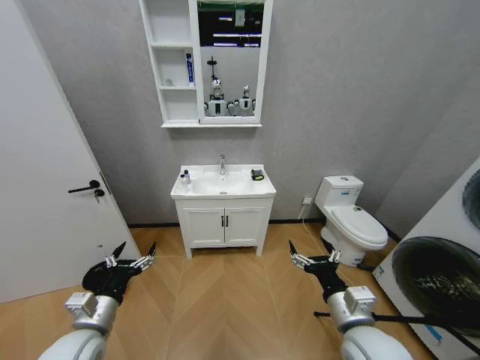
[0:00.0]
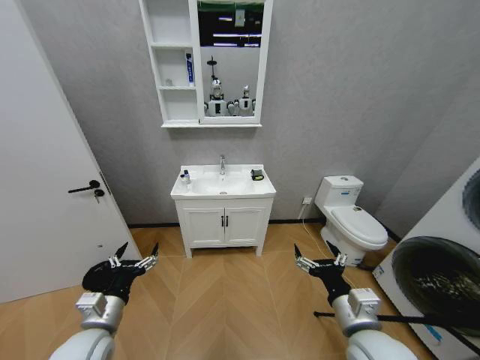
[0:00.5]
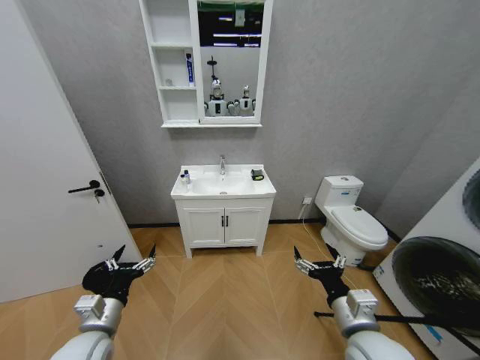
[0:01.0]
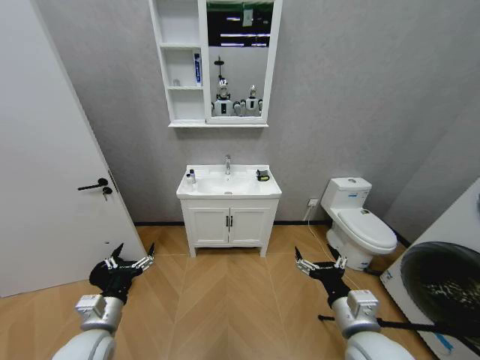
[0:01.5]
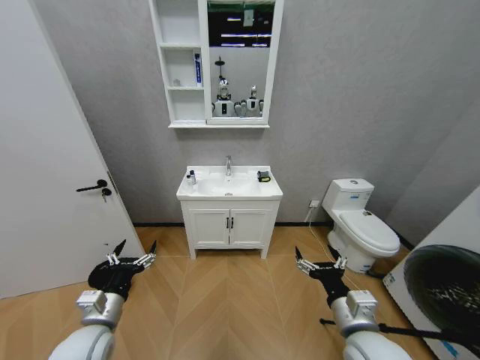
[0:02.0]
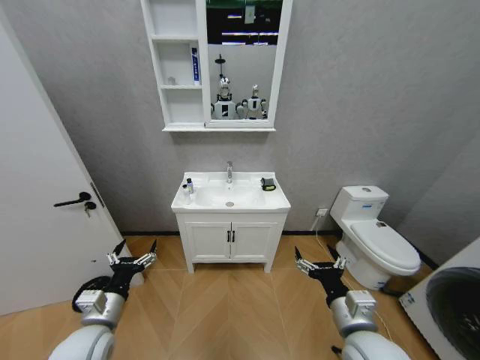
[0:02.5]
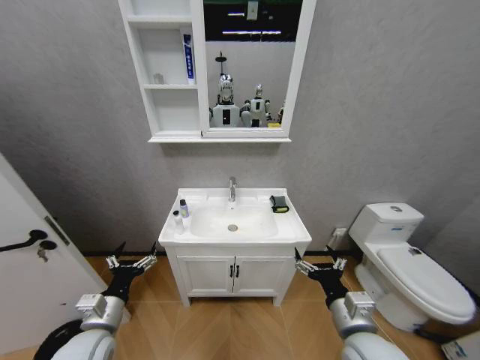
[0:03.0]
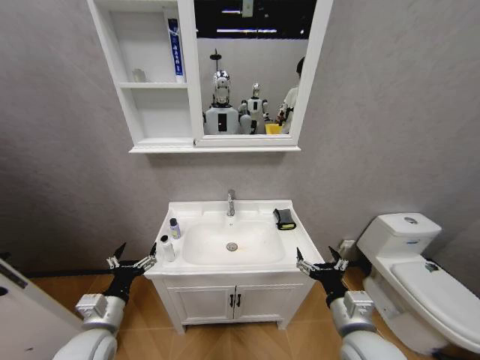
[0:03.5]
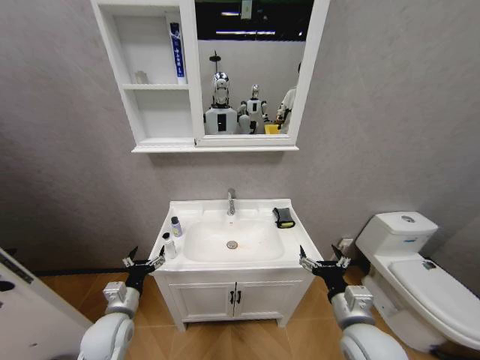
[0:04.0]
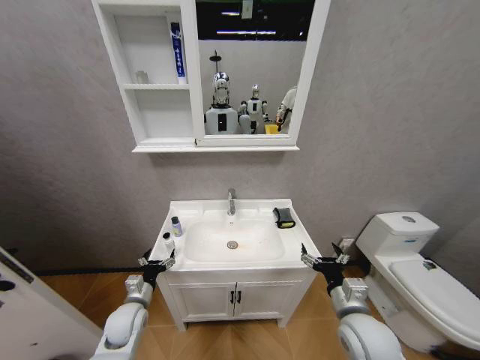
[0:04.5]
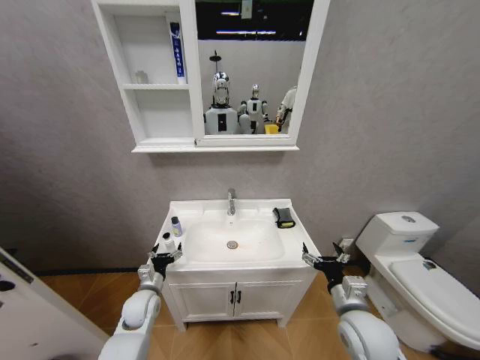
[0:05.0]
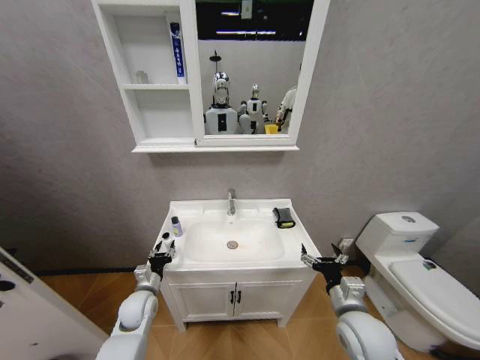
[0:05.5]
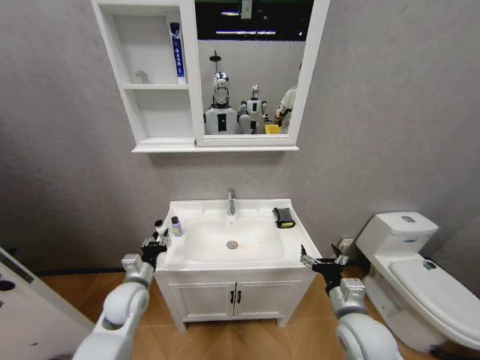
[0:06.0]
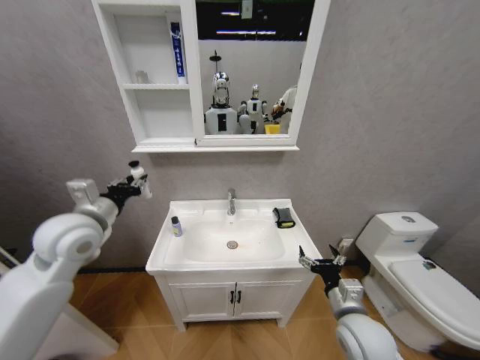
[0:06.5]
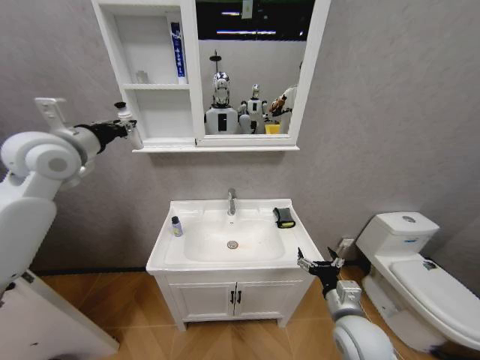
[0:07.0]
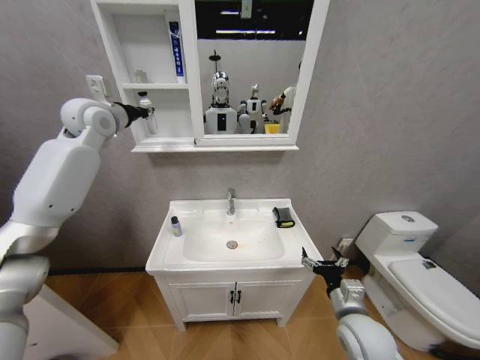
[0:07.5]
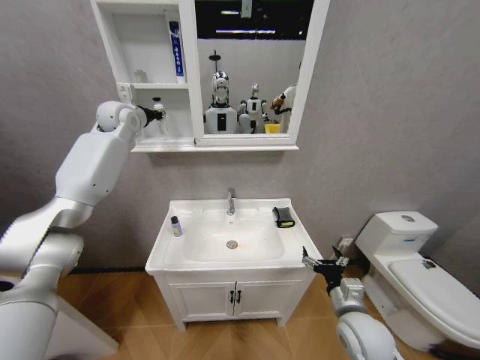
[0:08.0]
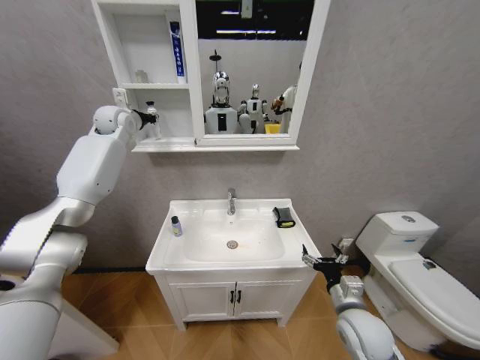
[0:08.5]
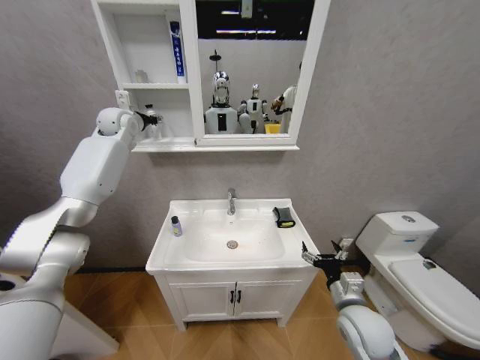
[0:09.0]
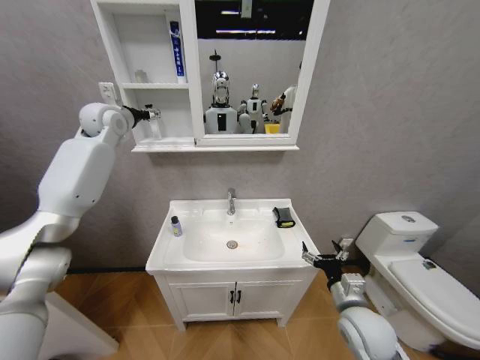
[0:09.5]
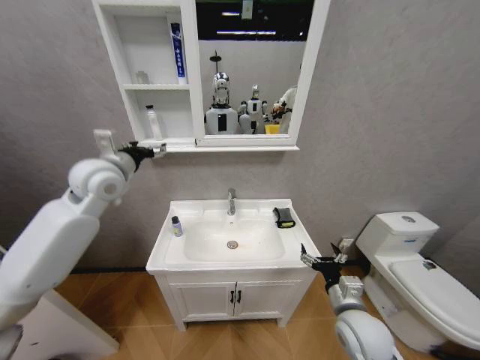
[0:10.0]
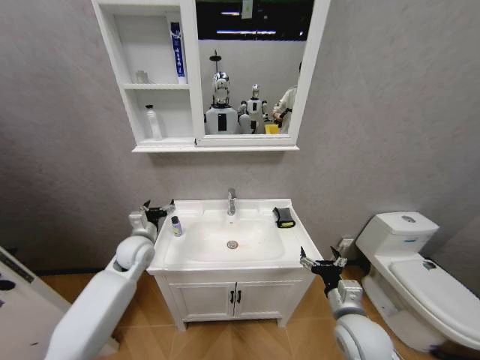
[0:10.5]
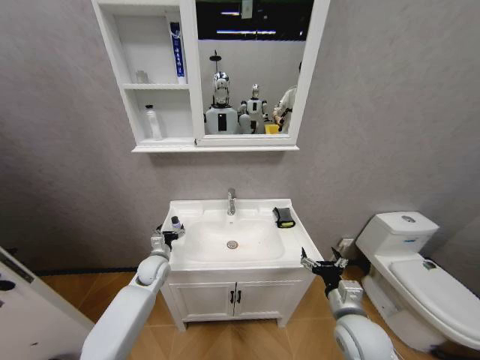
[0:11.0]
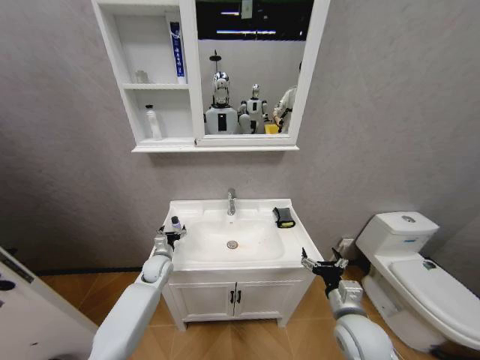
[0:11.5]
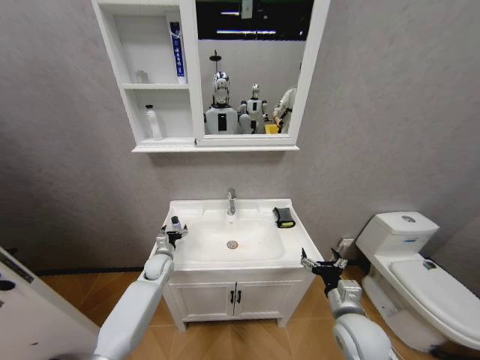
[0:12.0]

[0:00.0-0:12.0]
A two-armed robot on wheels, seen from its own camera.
Task of the whole recording: Move facial cleanser and shampoo from washbasin to cabinet, then wipe washbasin with towel.
0:02.0 to 0:04.0: The left gripper heads downward, covering some 5 cm.
0:04.0 to 0:06.0: The left gripper heads forward, covering approximately 5 cm, reaches roughly 5 cm downward, then returns, and closes its fingers.
0:06.0 to 0:08.0: The left gripper moves upward and forward, roughly 50 cm.
0:08.0 to 0:10.0: The left gripper heads backward and downward, covering roughly 20 cm, and opens its fingers.
0:10.0 to 0:12.0: The left gripper heads downward, covering approximately 35 cm.

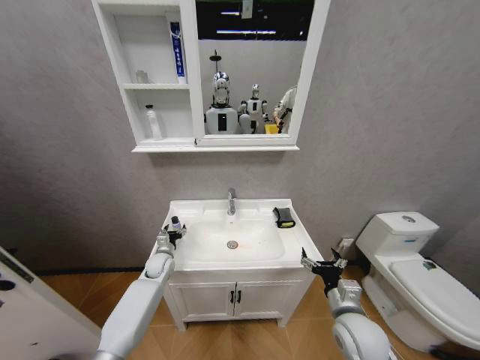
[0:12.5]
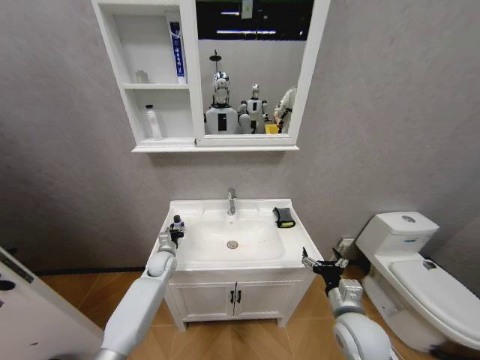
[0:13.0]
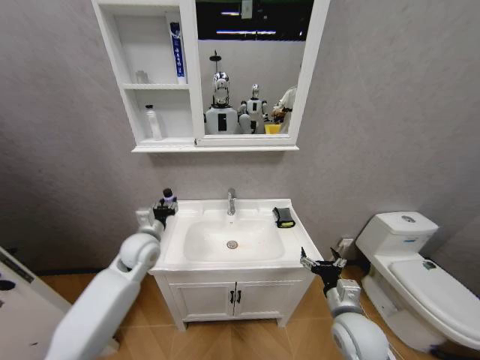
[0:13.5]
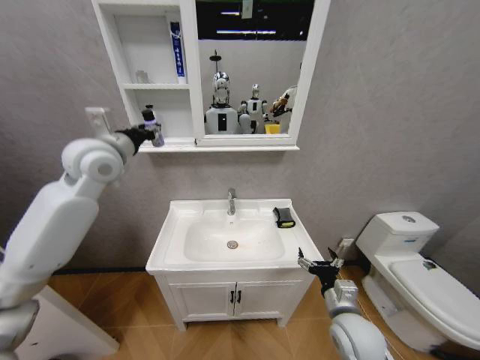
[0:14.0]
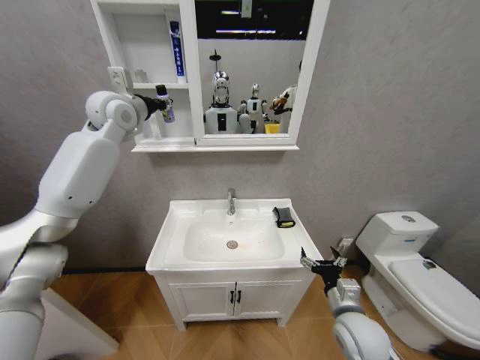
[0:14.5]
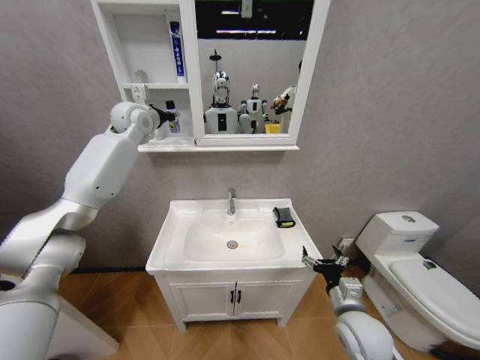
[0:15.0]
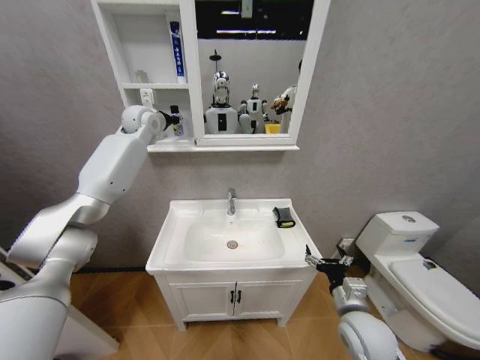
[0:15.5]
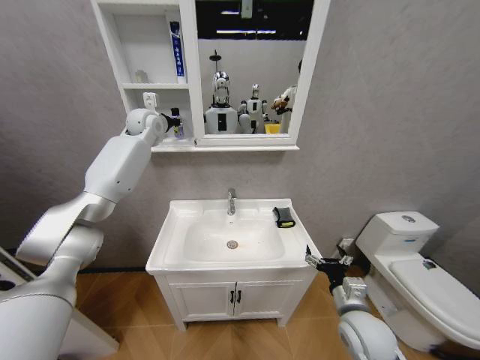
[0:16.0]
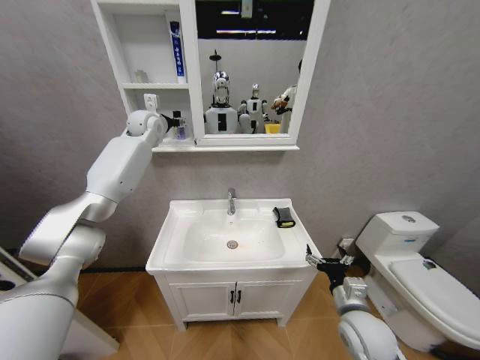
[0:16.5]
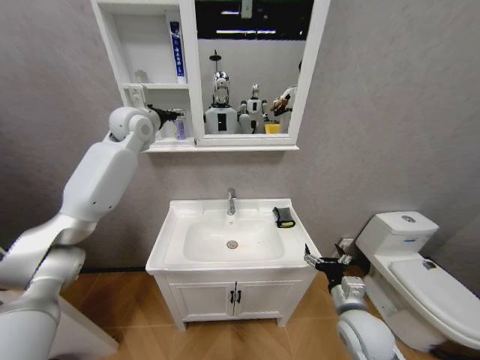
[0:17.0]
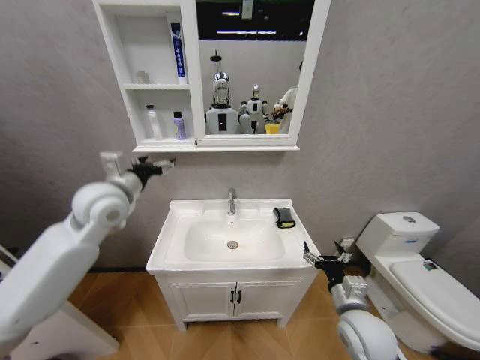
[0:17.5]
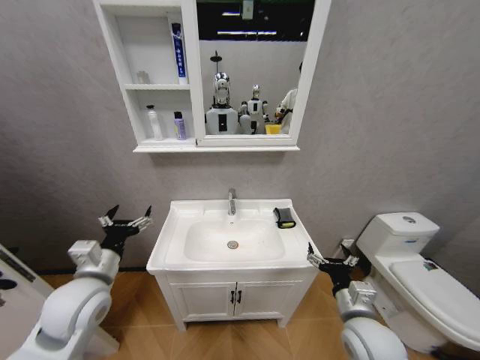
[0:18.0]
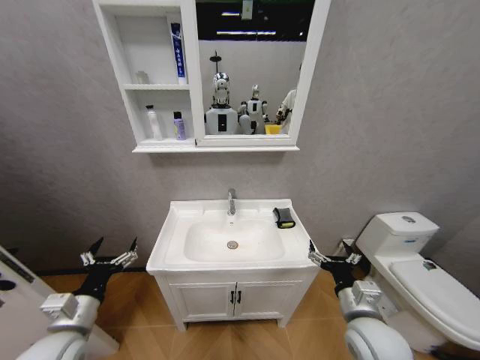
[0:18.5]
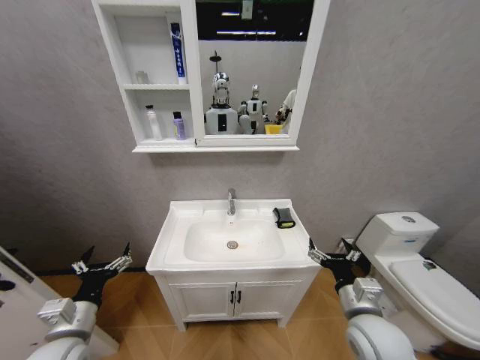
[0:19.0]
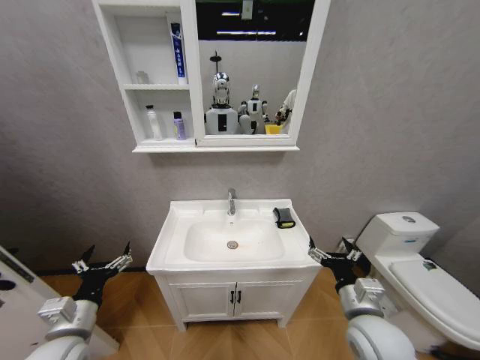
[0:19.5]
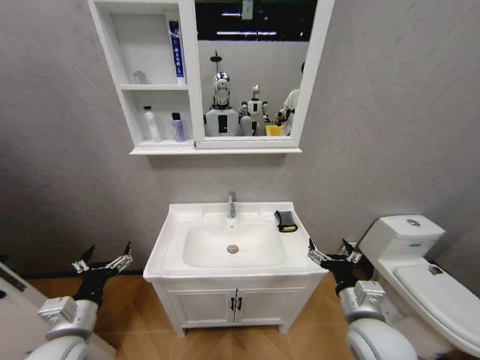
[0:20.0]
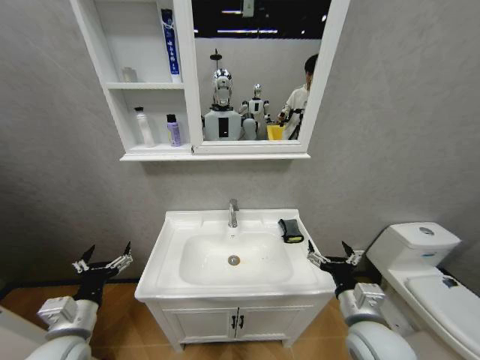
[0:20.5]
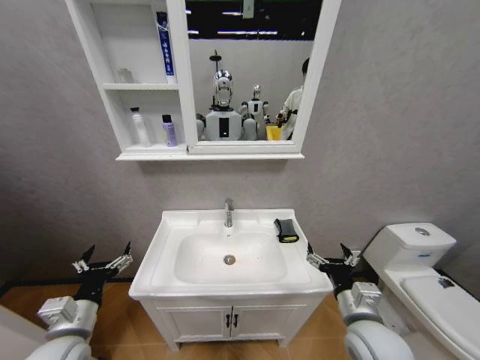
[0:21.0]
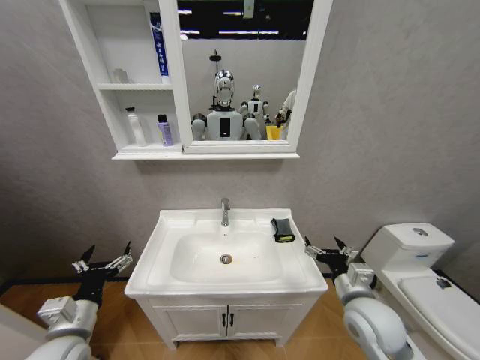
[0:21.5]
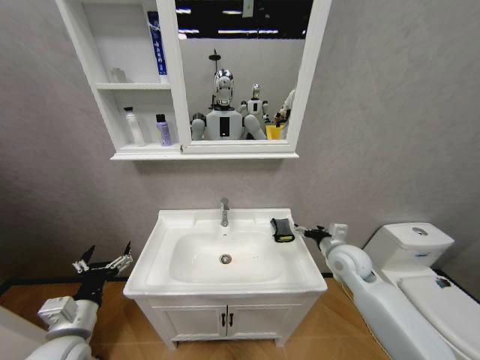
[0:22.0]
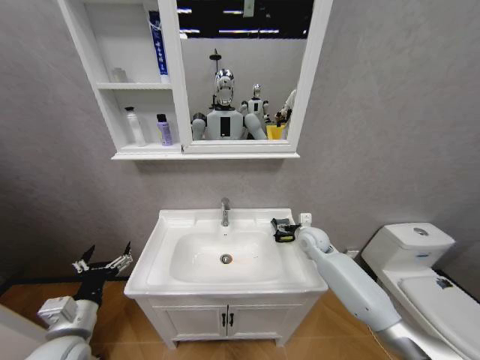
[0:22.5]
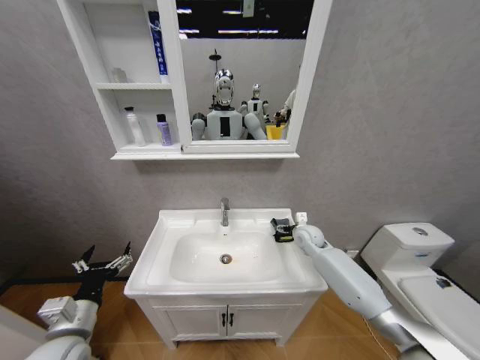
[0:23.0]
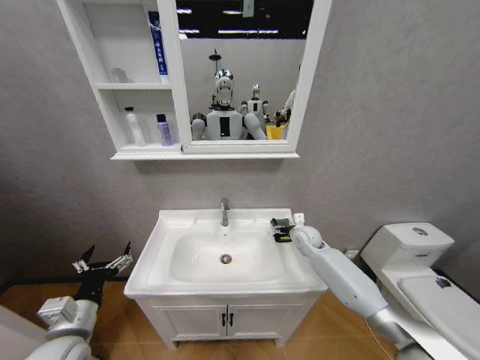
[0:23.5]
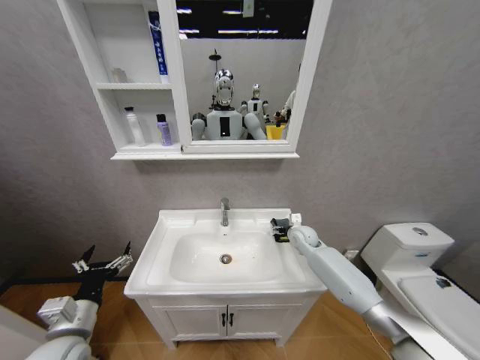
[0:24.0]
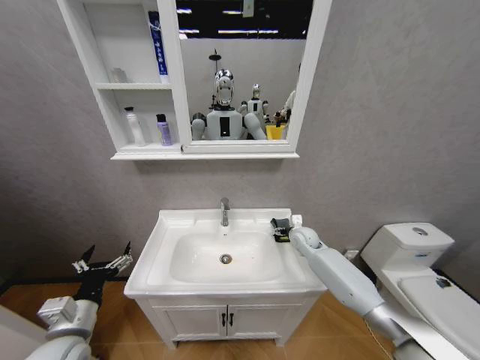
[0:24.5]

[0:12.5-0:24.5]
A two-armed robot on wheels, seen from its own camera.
Task of the whole recording: Move facial cleanser and shampoo from washbasin to cabinet, then wipe washbasin with towel.
0:12.5 to 0:14.5: The left gripper goes roughly 50 cm upward, and closes.
0:14.5 to 0:16.5: The left gripper moves forward and downward, approximately 10 cm, and opens.
0:16.5 to 0:18.5: The left gripper travels backward and downward by some 60 cm.
0:20.5 to 0:22.5: The right gripper shifts roughly 30 cm forward.
0:22.5 to 0:24.5: The right gripper shifts by approximately 5 cm.

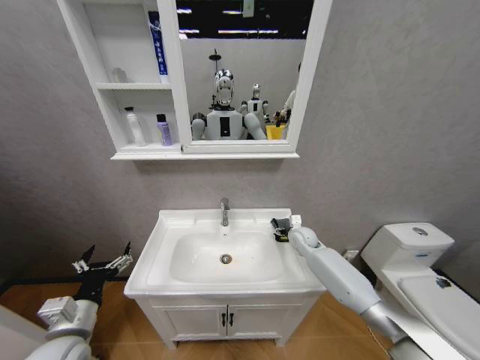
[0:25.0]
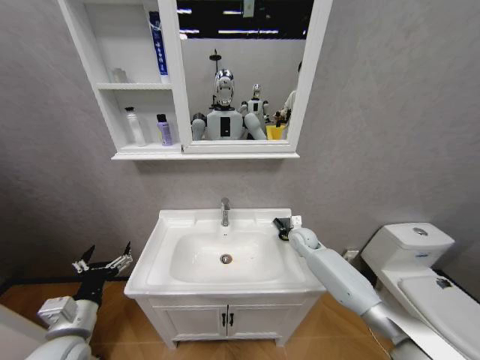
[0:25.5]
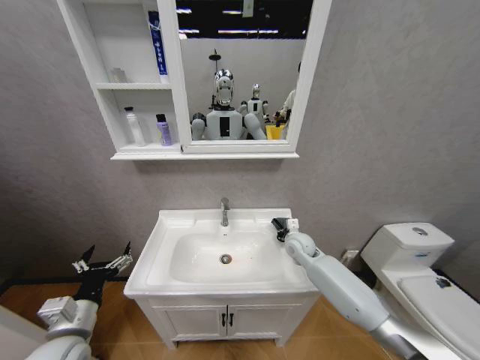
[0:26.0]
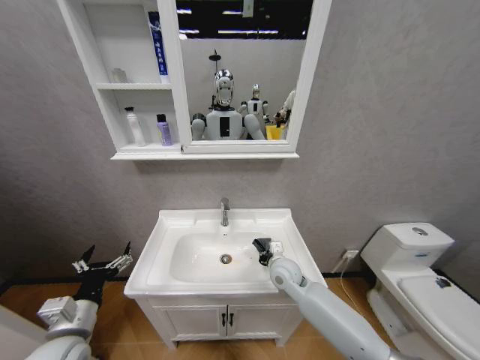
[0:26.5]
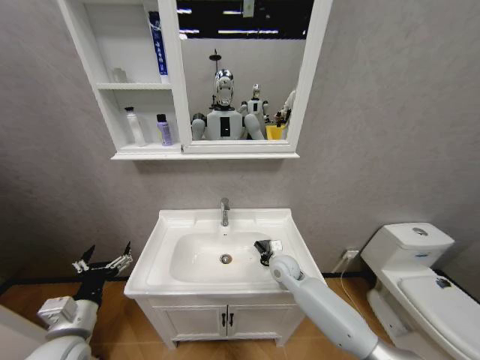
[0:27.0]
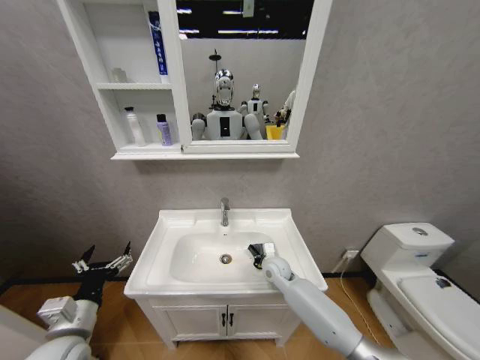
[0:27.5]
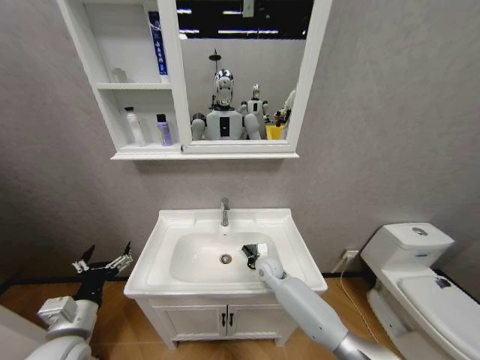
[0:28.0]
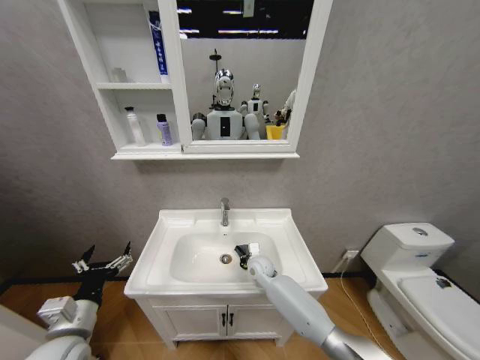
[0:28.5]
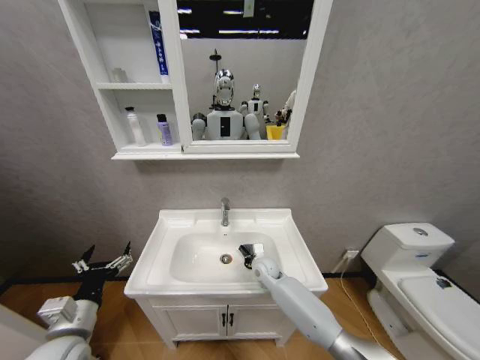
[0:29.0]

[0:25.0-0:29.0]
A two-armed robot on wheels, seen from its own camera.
Task of the whole recording: Move facial cleanser and shampoo from washbasin to cabinet, then wipe washbasin with towel.
0:25.0 to 0:27.0: The right gripper goes roughly 15 cm backward and to the left, and closes its fingers.
0:27.0 to 0:29.0: The right gripper shifts roughly 5 cm to the left.
